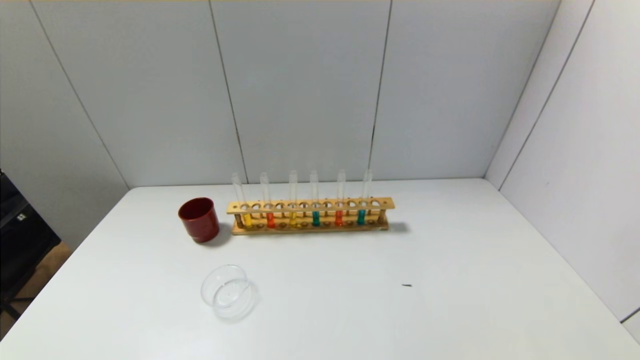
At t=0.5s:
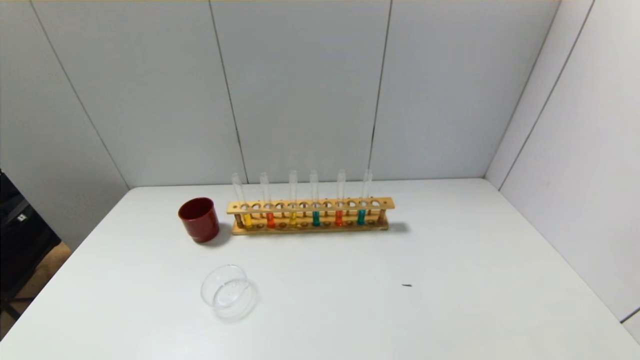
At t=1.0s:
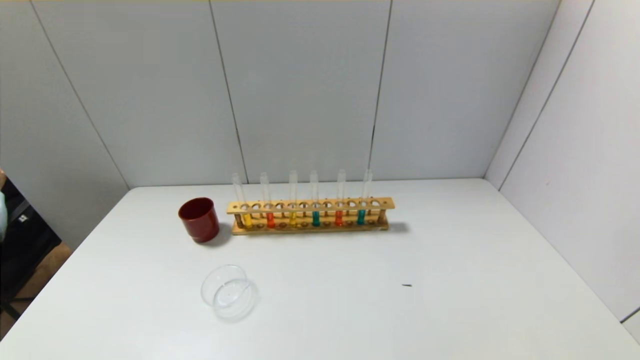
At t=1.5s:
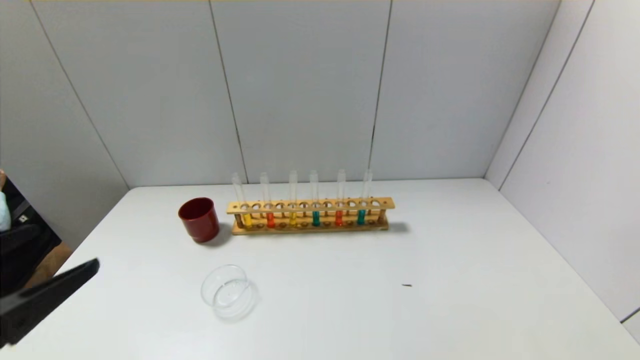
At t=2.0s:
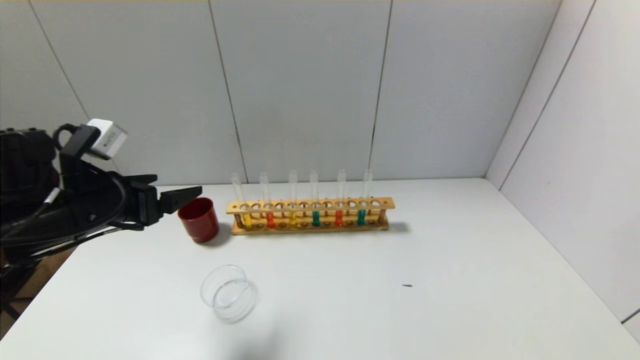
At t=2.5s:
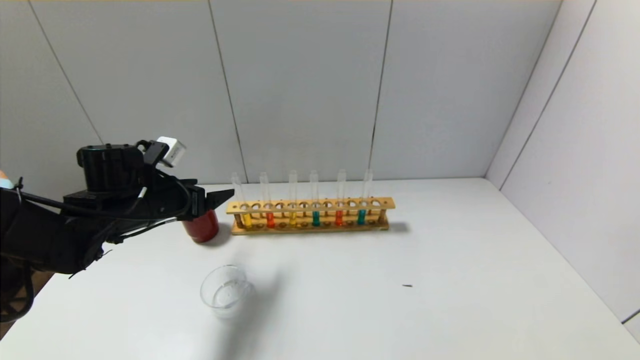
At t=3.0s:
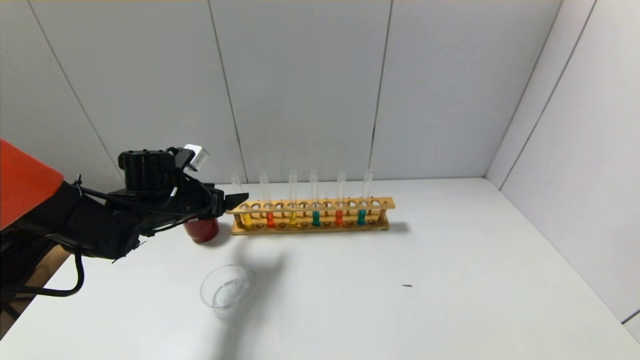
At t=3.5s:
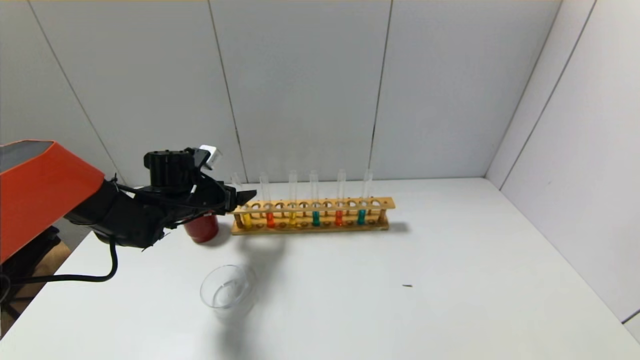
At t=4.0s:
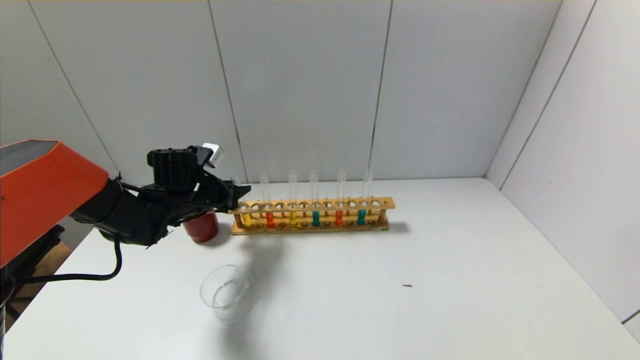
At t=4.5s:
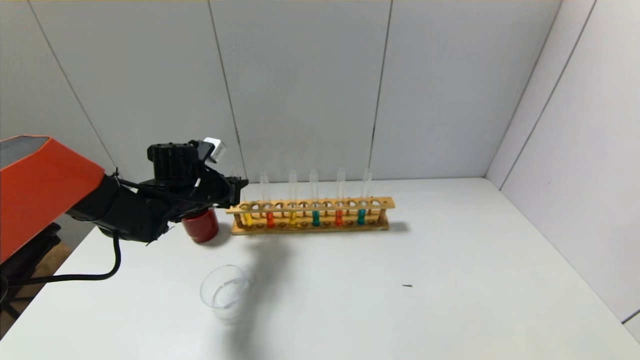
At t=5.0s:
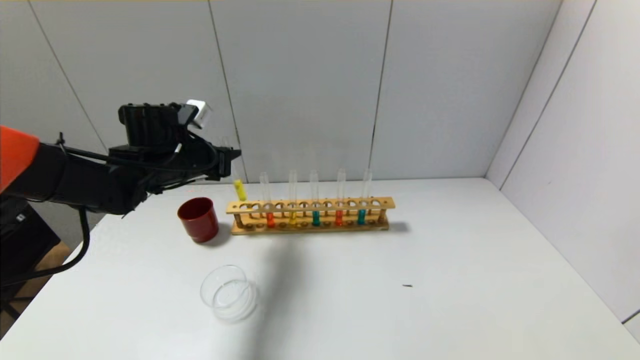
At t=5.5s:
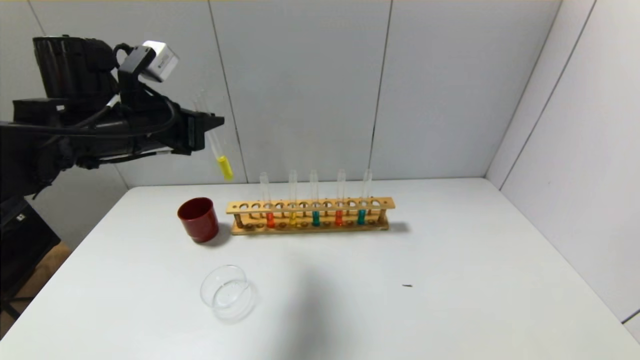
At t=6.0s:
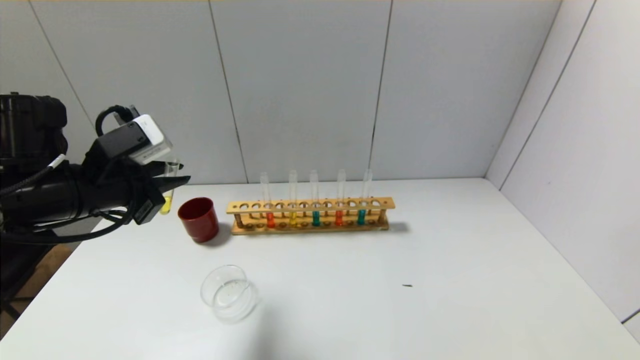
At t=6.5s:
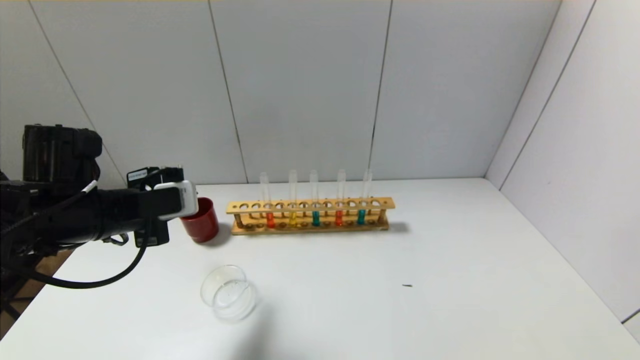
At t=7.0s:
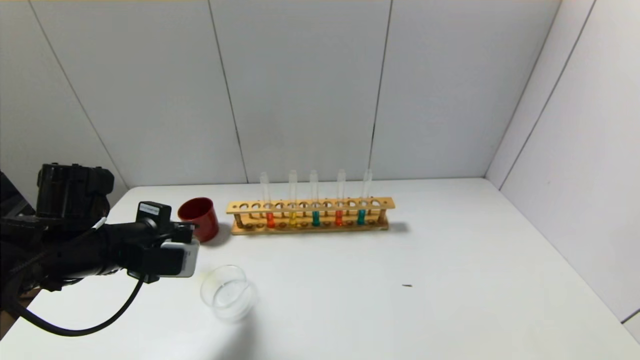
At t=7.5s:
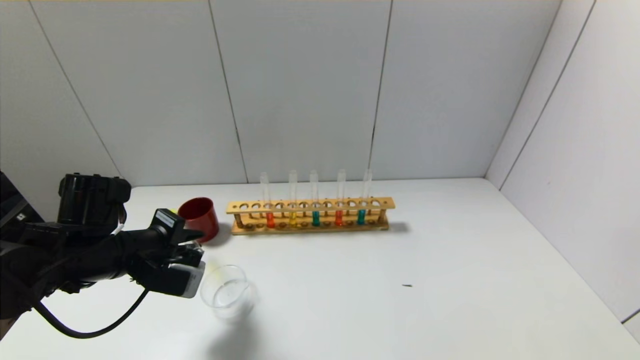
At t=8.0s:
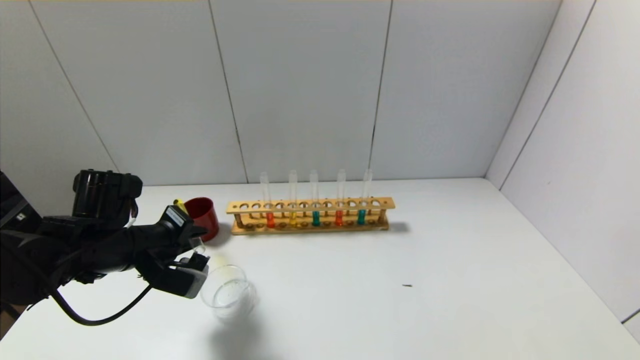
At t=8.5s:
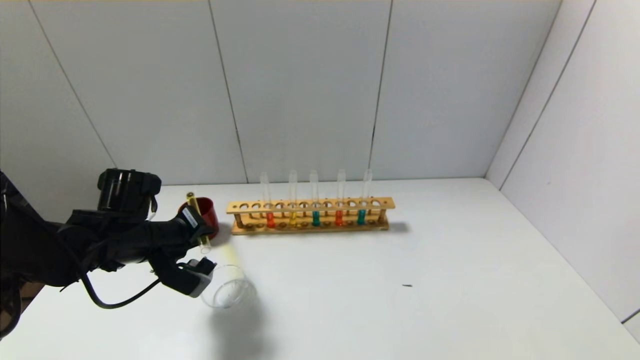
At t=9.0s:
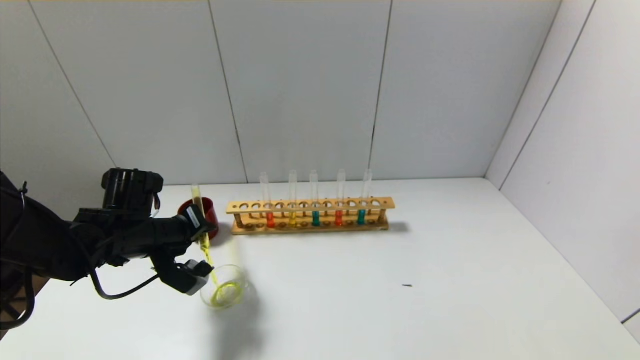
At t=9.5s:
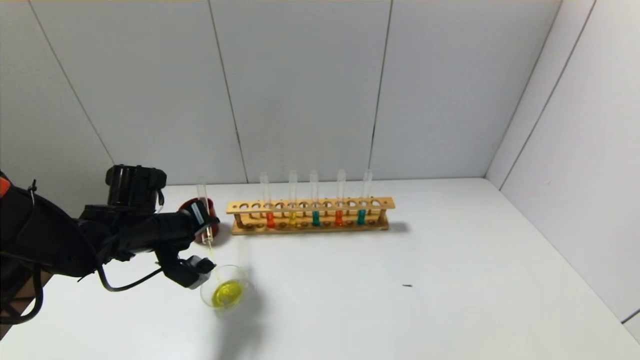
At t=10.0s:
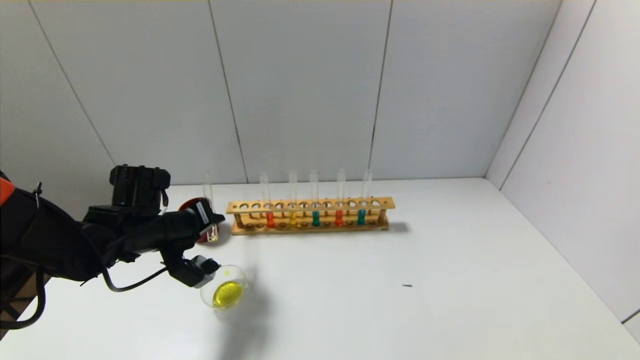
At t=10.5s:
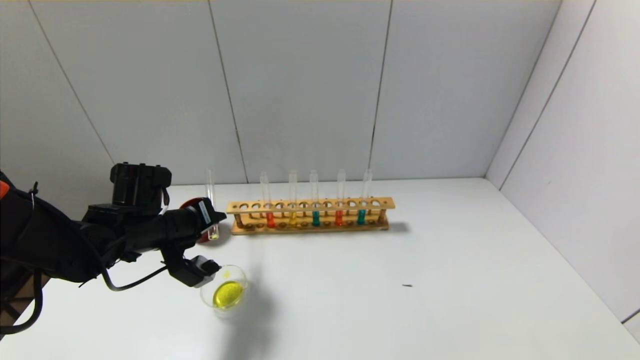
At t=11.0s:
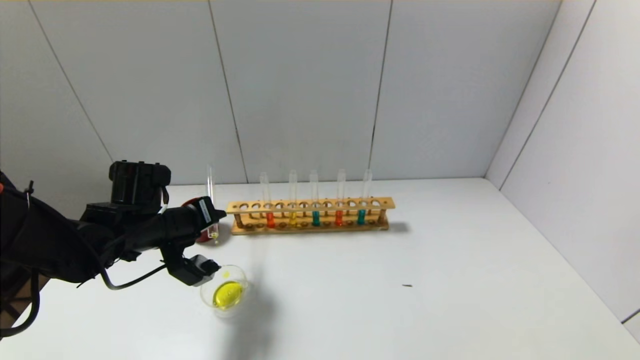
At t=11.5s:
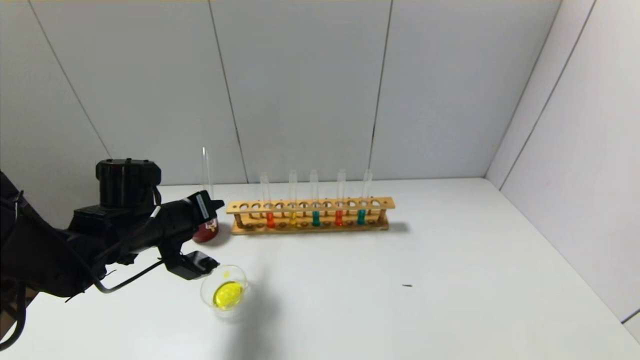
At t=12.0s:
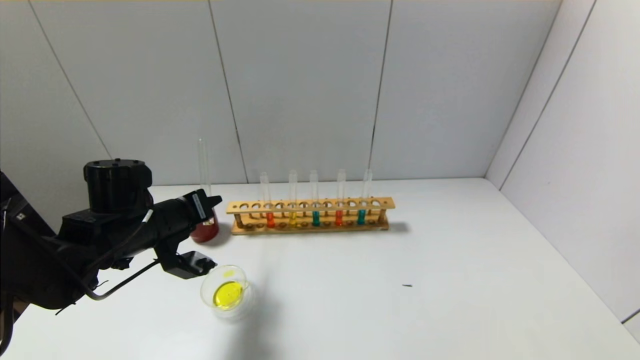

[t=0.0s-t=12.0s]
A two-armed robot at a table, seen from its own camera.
Step, t=0.0s to t=4.0s: Grasp the yellow reagent with the left gripper.
t=0.0s to t=2.0s: The left gripper travels forward and upward by roughly 30 cm.
t=2.0s to t=4.0s: The left gripper moves forward and downward, some 20 cm, and closes.
t=4.0s to t=6.0s: The left gripper heads backward and upward, covering roughly 20 cm.
t=6.0s to t=8.0s: The left gripper is displaced downward by some 10 cm.
t=10.0s to t=12.0s: The grippers move only a little.

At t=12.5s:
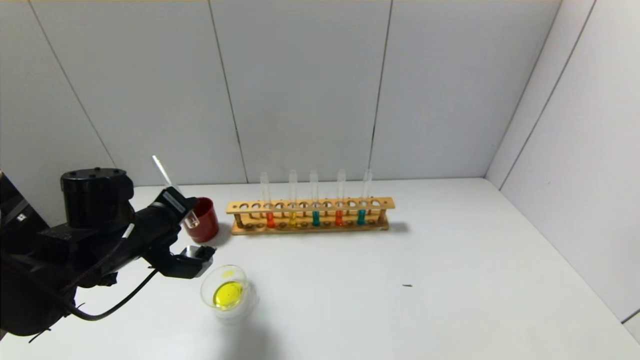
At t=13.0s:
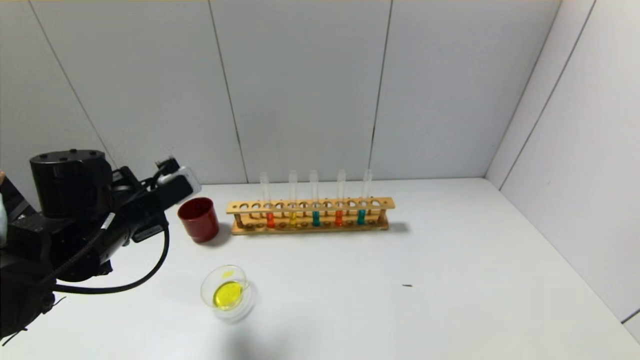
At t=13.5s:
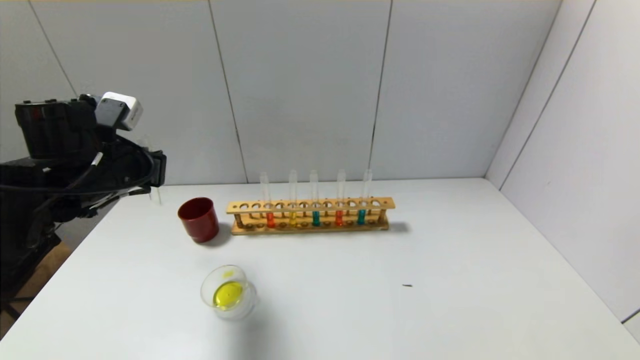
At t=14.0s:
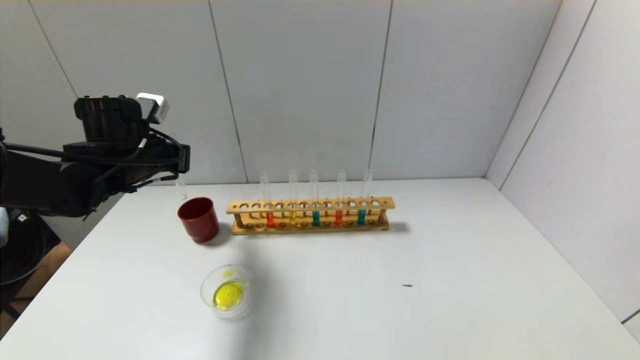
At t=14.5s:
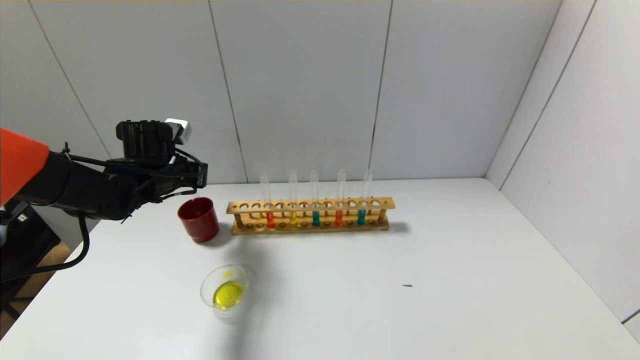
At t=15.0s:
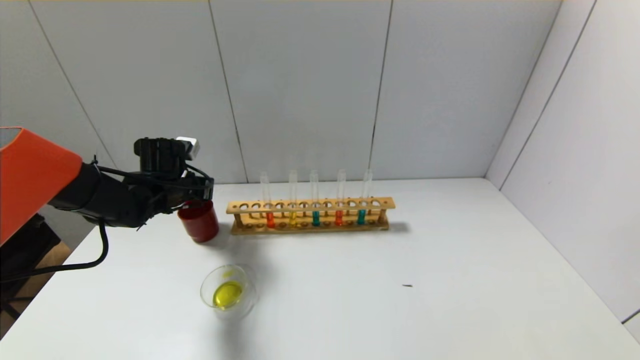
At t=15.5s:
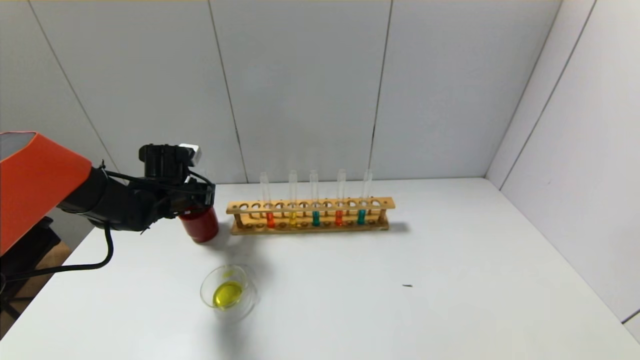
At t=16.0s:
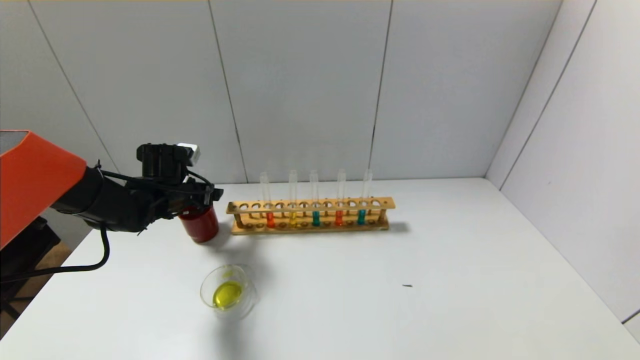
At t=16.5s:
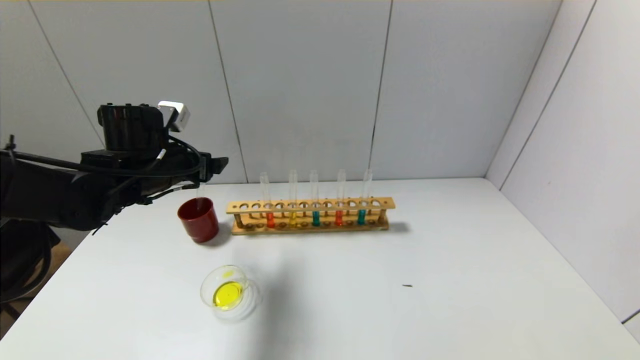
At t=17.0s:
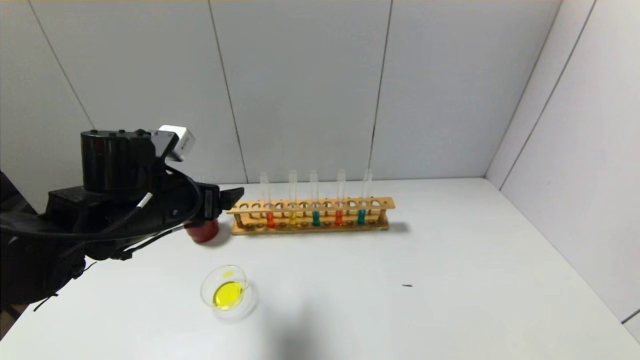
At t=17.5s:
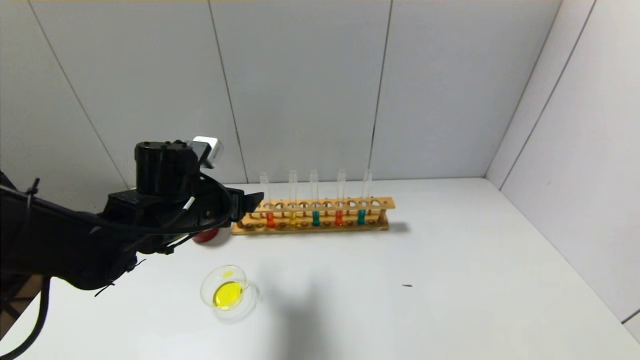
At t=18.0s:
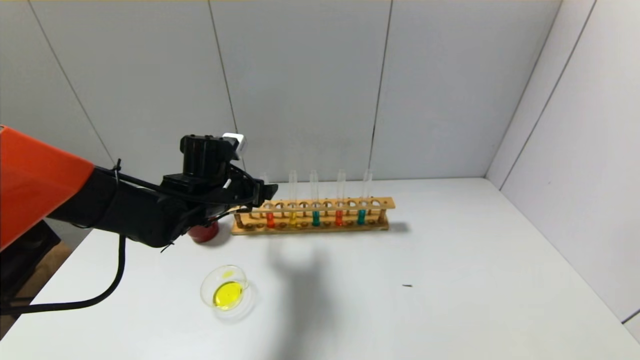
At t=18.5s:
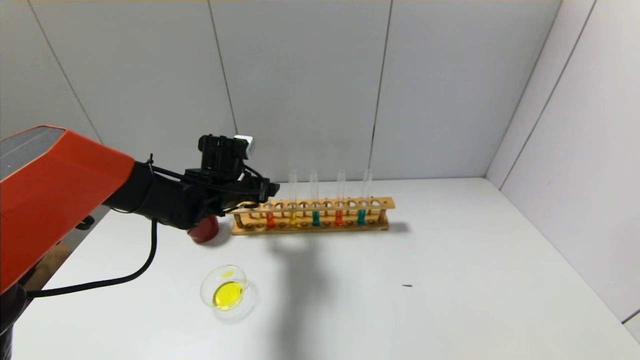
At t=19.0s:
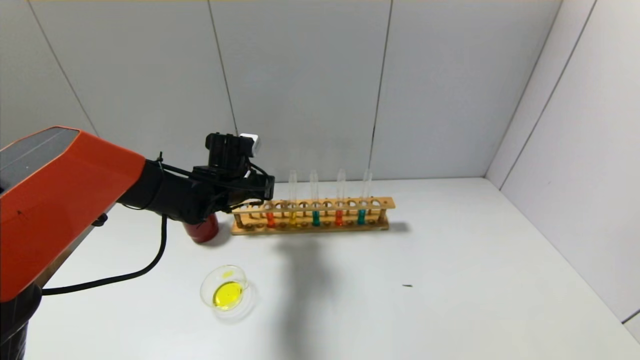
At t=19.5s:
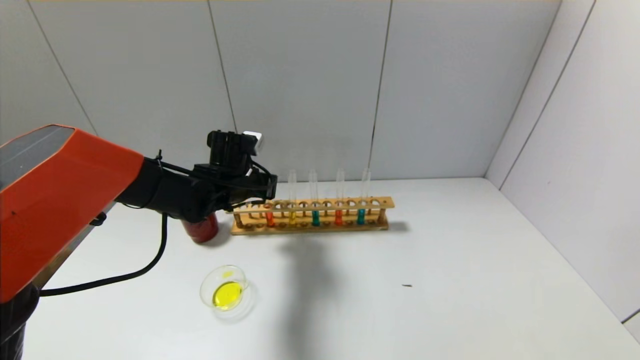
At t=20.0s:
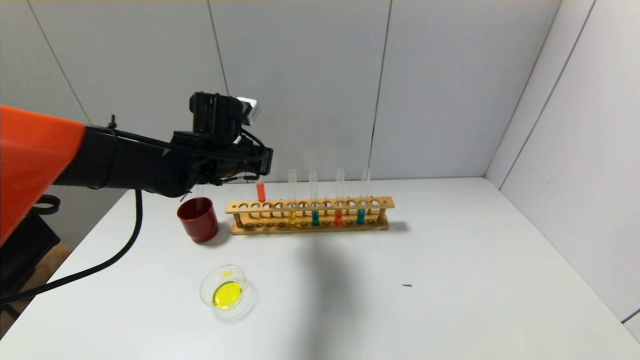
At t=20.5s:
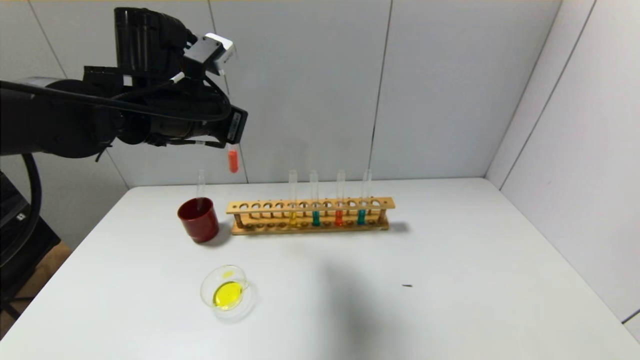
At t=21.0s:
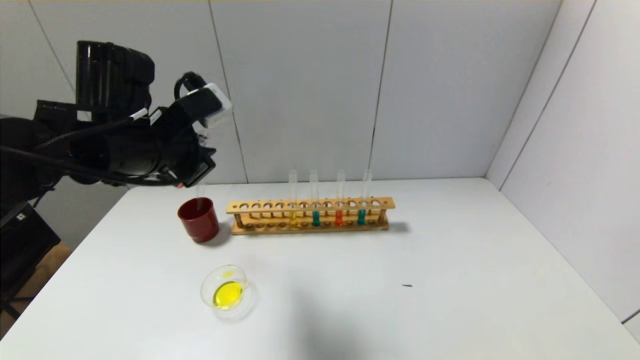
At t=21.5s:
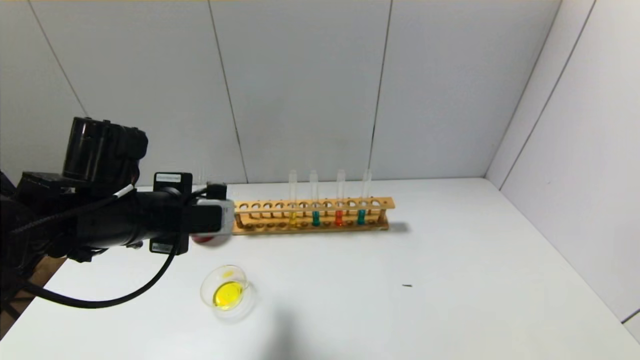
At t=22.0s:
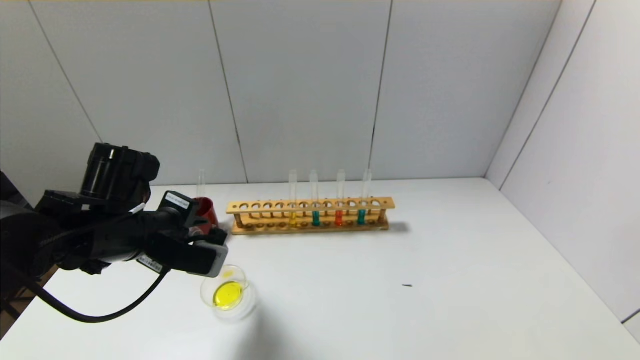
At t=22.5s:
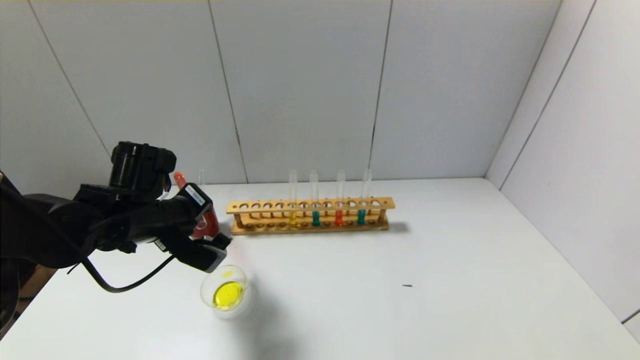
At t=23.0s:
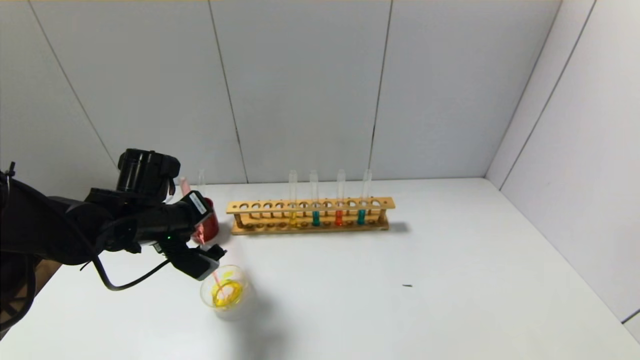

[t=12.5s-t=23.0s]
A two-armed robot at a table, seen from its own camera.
Step, t=13.0s to t=15.5s: Place the test tube into the brown cup with the left gripper.
Step, t=16.0s to t=19.0s: Grasp the red reagent with the left gripper.
t=12.5s to t=14.5s: The left gripper shifts roughly 15 cm forward.
t=14.5s to t=16.5s: The left gripper is displaced backward by some 5 cm, and opens its fingers.
t=16.5s to t=19.0s: The left gripper shifts approximately 15 cm to the right, downward and forward, and closes.
t=19.0s to t=21.0s: The left gripper heads upward and backward, covering some 20 cm.
t=21.0s to t=23.0s: The left gripper moves downward, roughly 10 cm.
